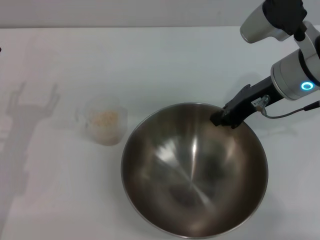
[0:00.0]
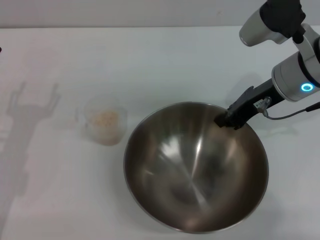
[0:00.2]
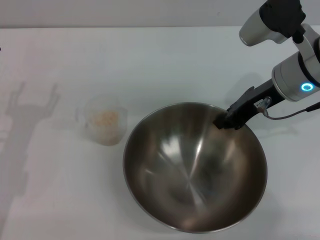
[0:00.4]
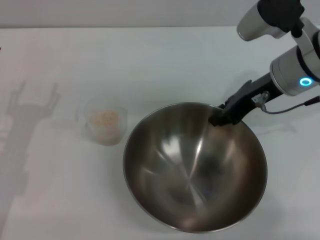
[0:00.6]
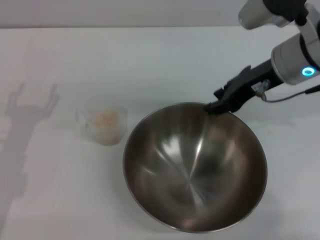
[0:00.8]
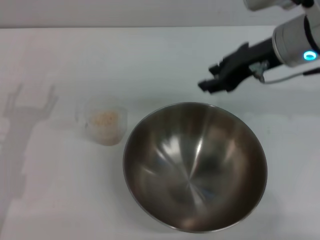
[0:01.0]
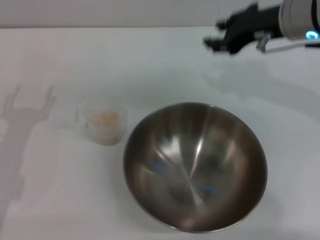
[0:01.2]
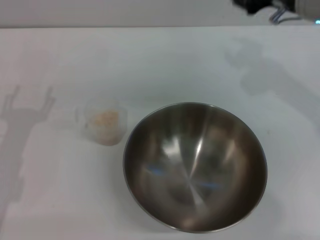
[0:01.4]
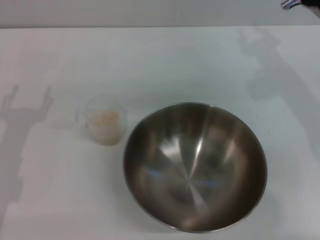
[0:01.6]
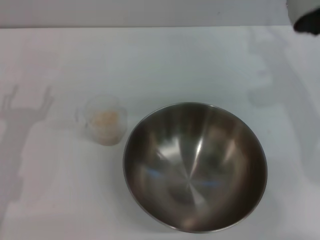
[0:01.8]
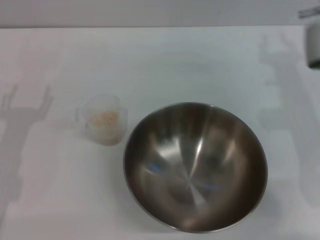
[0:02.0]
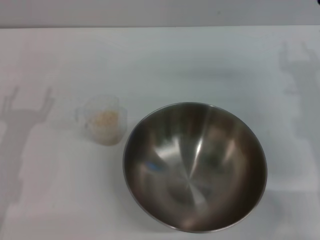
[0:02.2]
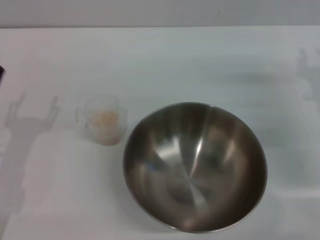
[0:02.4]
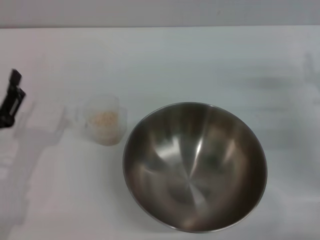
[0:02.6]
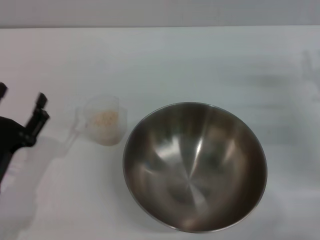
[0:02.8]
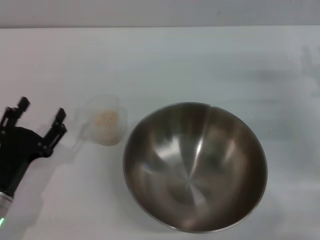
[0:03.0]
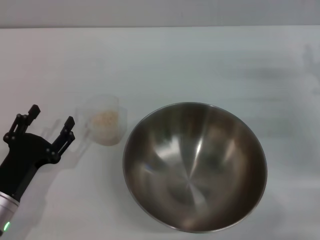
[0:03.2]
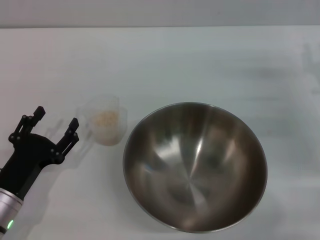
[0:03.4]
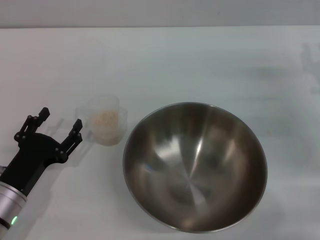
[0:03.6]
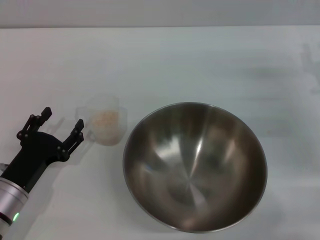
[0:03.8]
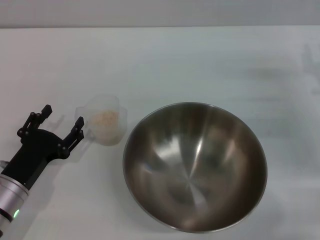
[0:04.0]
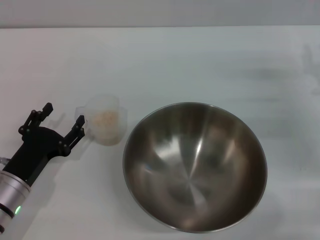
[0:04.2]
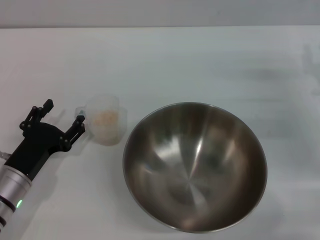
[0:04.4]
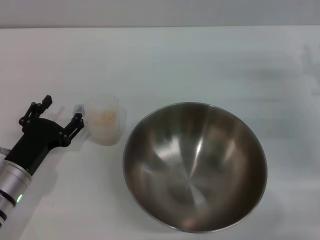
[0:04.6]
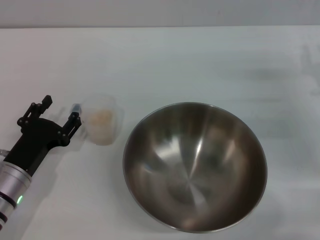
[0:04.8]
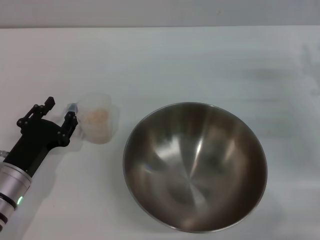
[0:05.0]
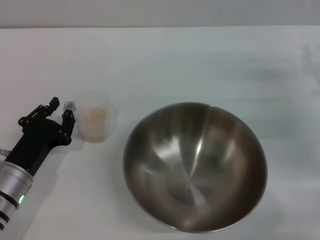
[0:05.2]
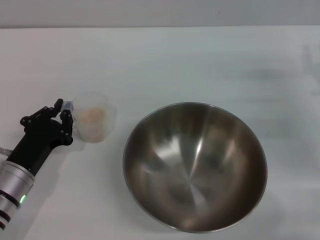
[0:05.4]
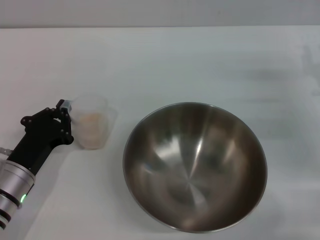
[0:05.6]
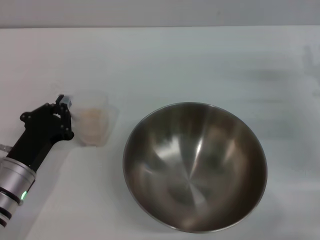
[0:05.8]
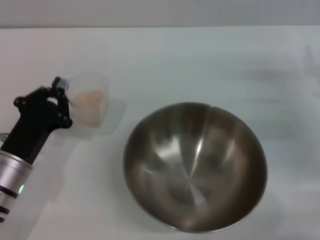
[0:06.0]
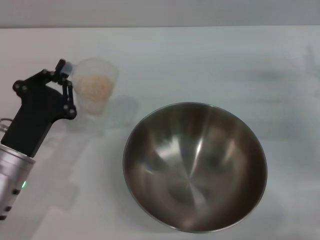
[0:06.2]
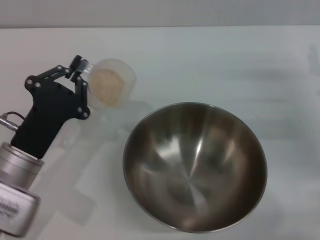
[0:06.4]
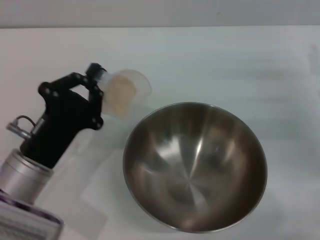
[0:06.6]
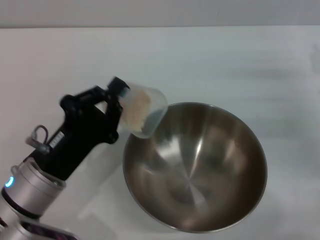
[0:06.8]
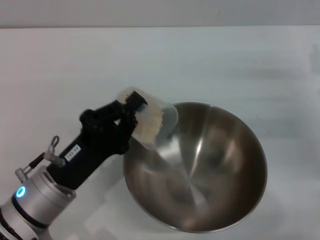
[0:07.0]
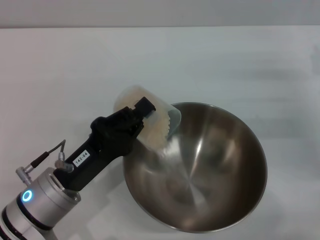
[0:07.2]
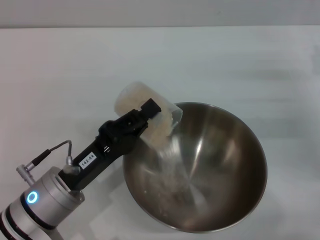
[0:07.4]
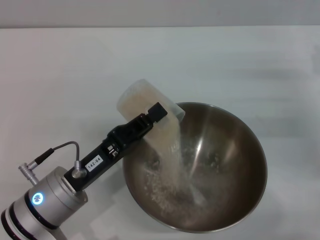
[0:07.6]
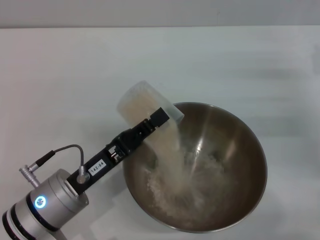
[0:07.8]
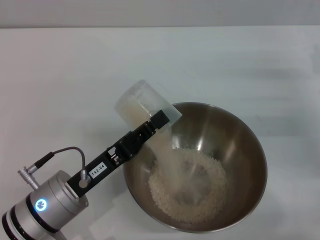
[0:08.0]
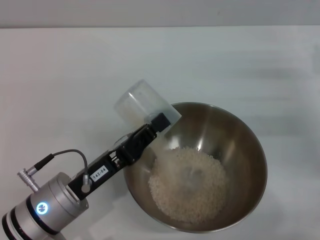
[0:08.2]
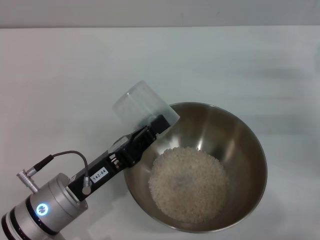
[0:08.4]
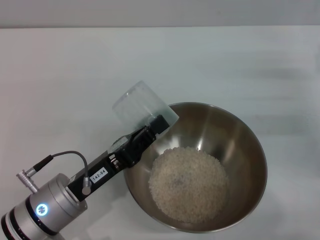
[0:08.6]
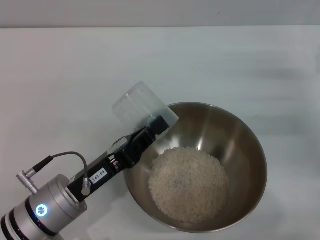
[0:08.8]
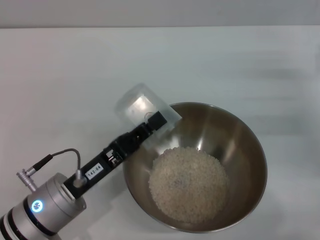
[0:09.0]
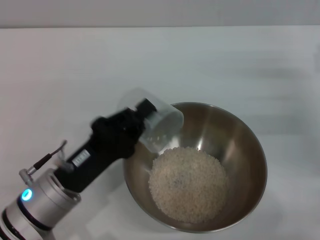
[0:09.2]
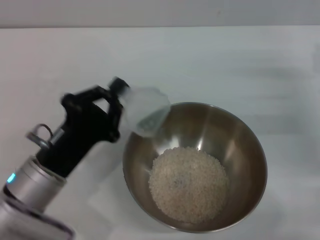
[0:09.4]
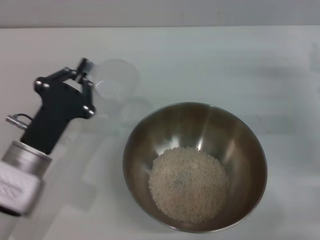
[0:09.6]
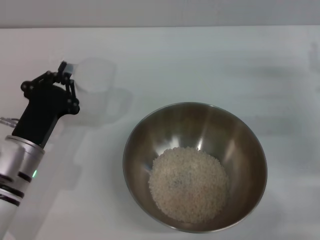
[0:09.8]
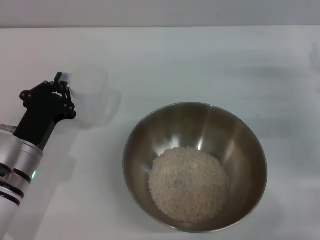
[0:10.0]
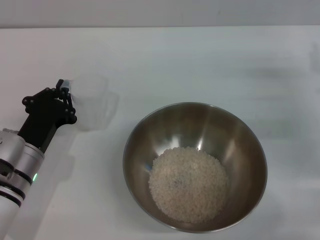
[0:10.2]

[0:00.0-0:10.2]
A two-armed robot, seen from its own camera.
Task of the whole recording: Place the bowl in the middle of the table with one hand and pour the rice from the grain cup into it with the other hand.
Step, 0:01.2 to 0:06.0: Pick up the cup with rice in it with the left gripper.
Step, 0:06.2 to 0:09.6: Pour the rice from the cup into the bowl with the left gripper.
0:00.0 to 0:01.4: The right gripper shifts by approximately 5 cm, and opens its fingers.
0:01.4 to 0:03.0: The right gripper shifts about 20 cm downward and to the right. Meanwhile the left gripper goes about 5 cm downward.
0:03.0 to 0:04.4: The grippers move only a little.
0:04.4 to 0:05.8: The left gripper closes its fingers.
0:05.8 to 0:07.2: The left gripper moves to the right, about 5 cm.
0:08.8 to 0:10.2: The left gripper goes roughly 10 cm forward and to the left.

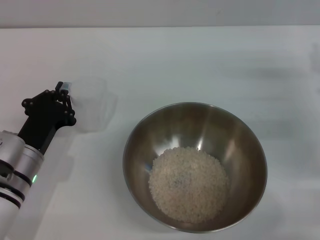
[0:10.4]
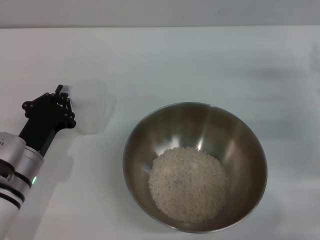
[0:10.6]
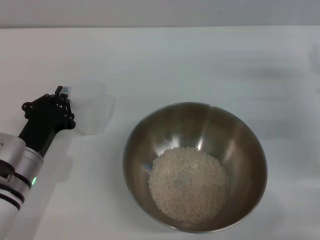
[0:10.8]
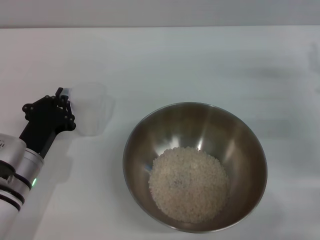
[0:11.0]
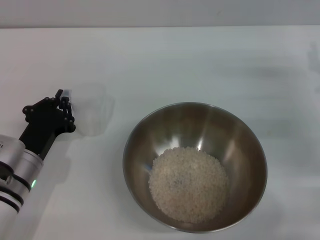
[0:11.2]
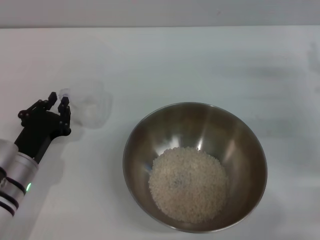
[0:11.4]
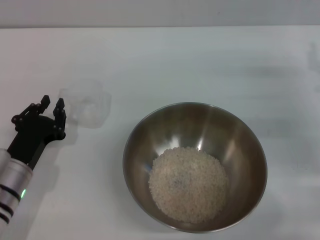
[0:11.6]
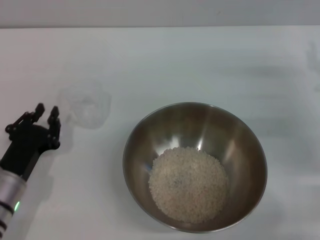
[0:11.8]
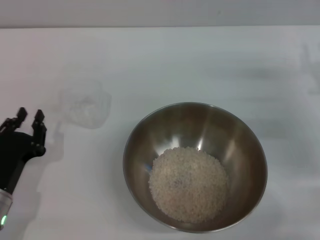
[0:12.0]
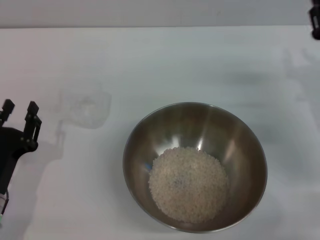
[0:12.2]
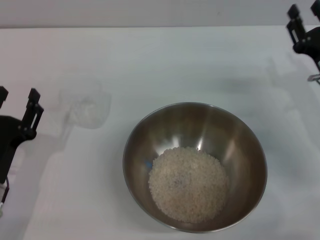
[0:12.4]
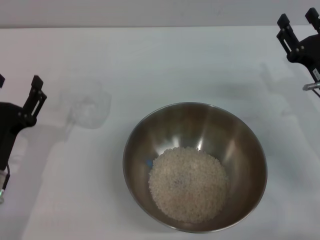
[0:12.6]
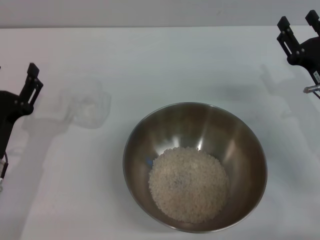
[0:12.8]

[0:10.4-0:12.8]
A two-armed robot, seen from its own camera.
Task of the whole recording: Place the bowl in the middle of the table with one hand and pour the rice from the grain cup into it with the other hand.
Step, 0:10.4 to 0:11.8: Place the cup on the table with the left gripper.
0:10.4 to 0:11.6: The grippers make only small movements.
0:11.6 to 0:12.8: The right gripper shifts by some 5 cm. Meanwhile the left gripper opens.
